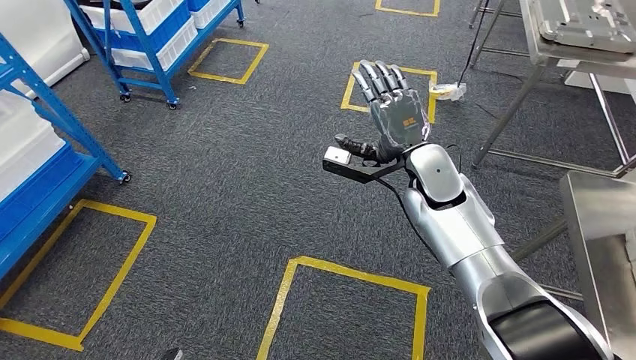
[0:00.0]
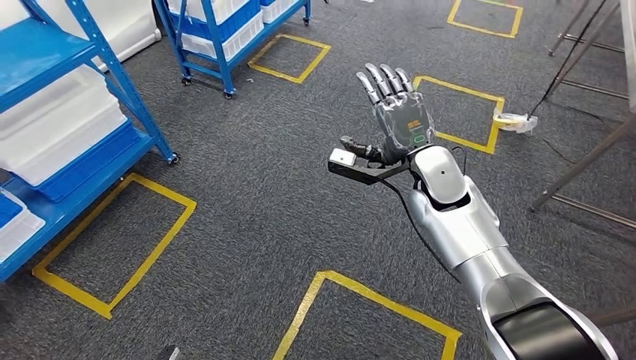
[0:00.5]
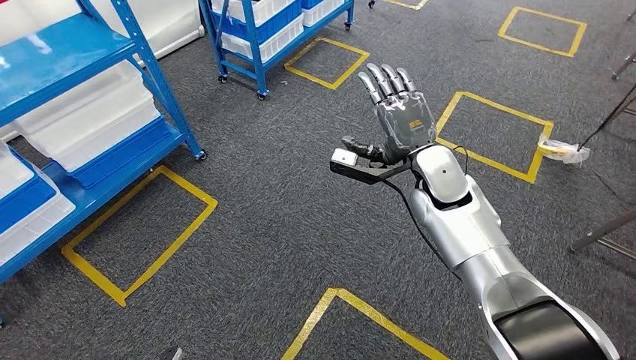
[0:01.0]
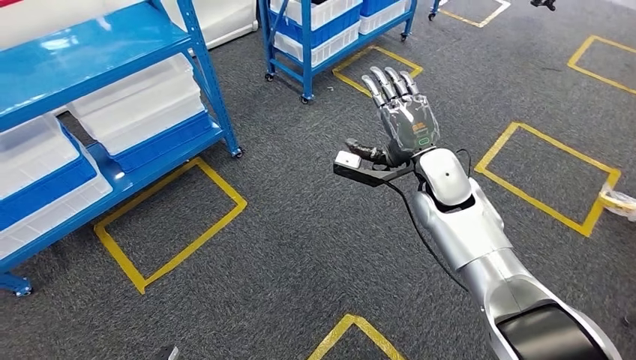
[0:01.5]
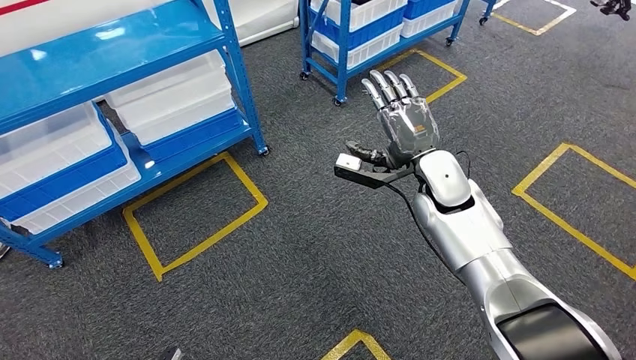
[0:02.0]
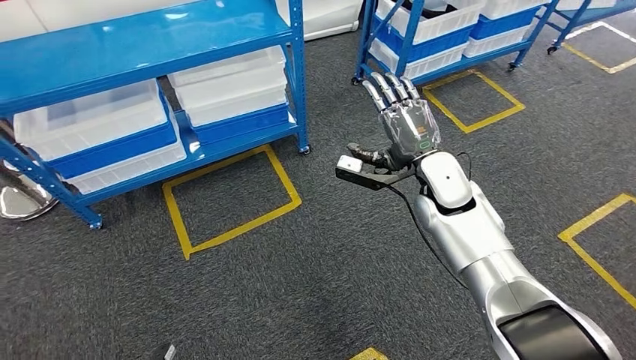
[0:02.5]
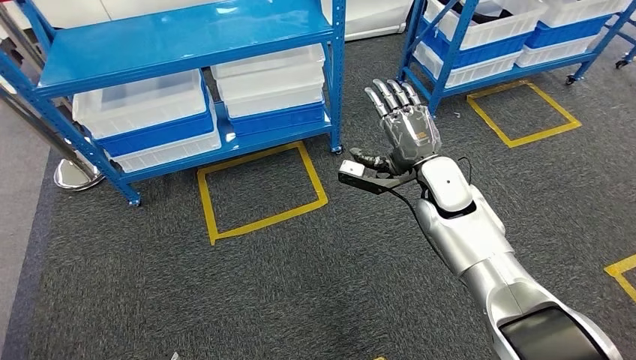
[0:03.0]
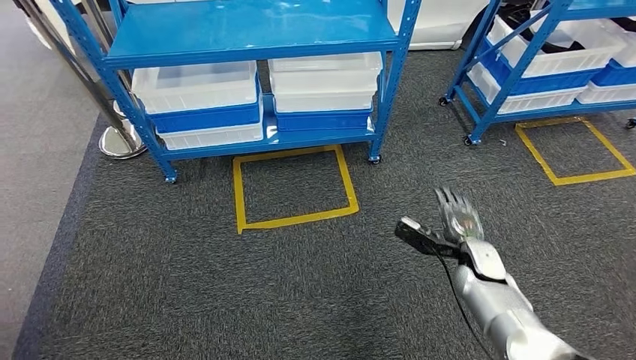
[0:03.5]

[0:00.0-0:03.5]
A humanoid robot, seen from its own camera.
Step, 0:00.0 to 0:03.5: Move to the initial position of the shelf.
